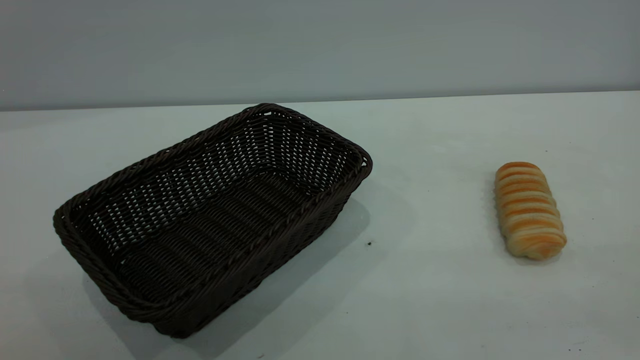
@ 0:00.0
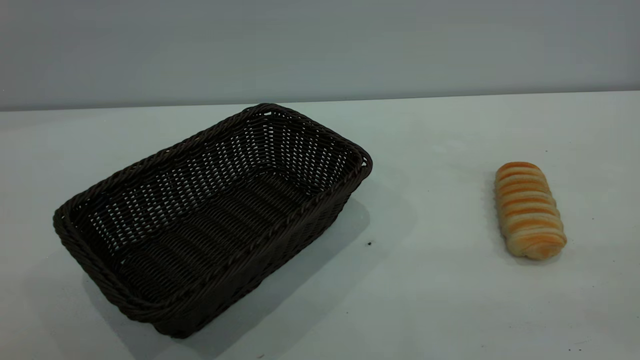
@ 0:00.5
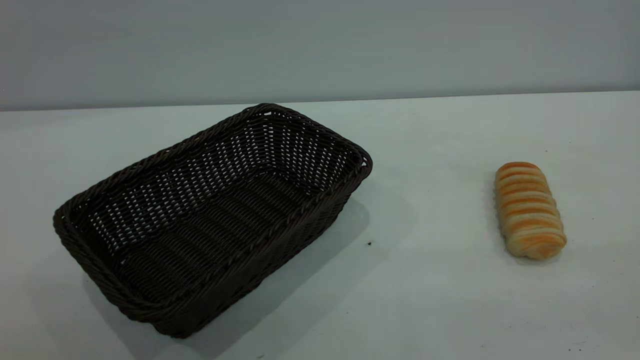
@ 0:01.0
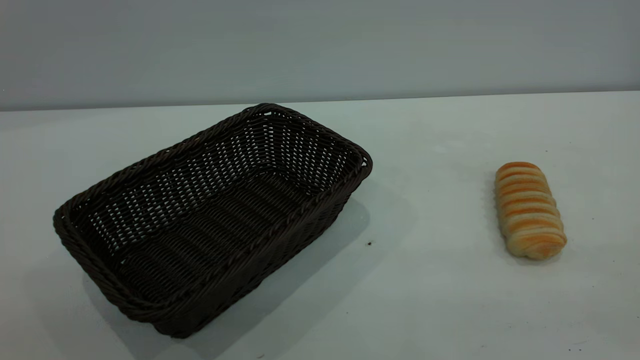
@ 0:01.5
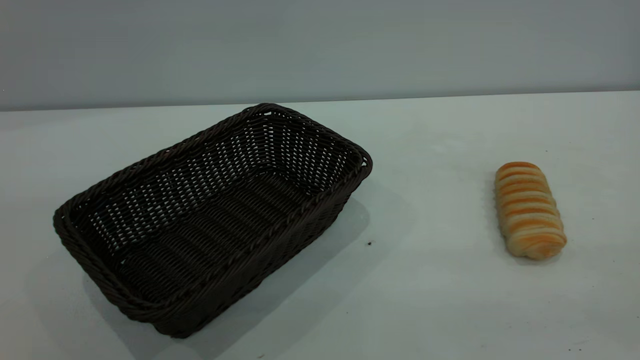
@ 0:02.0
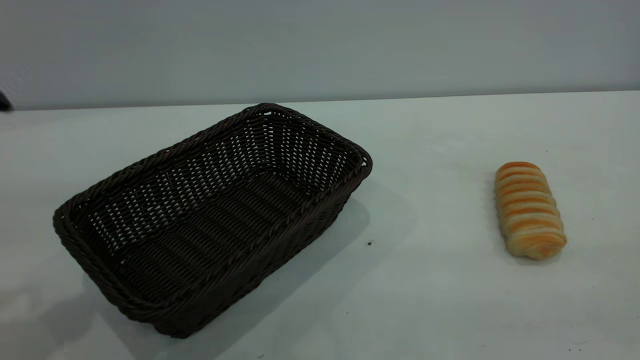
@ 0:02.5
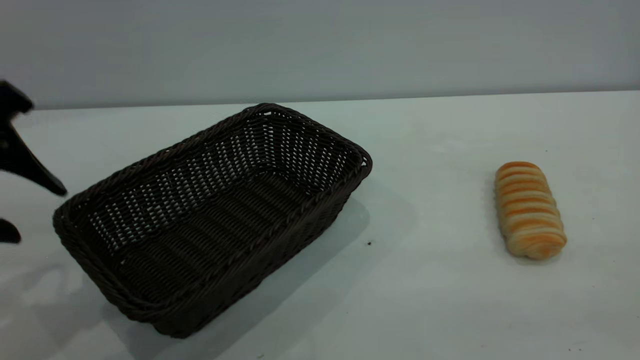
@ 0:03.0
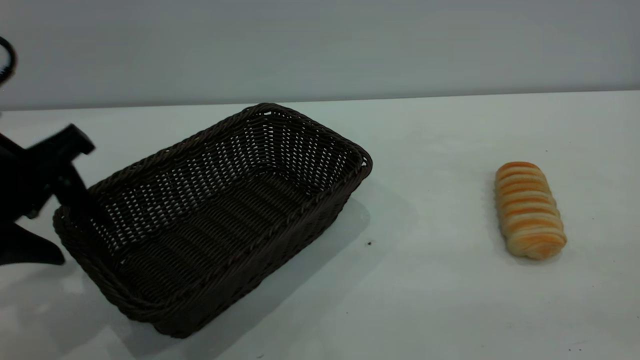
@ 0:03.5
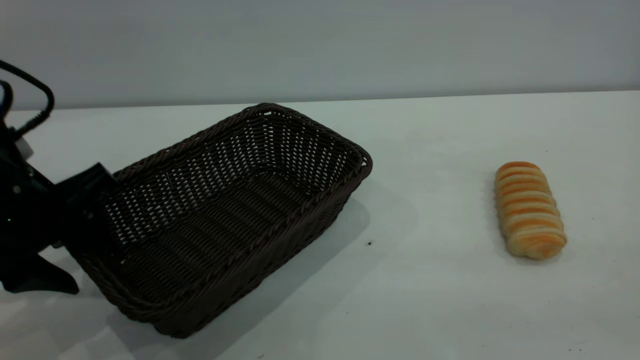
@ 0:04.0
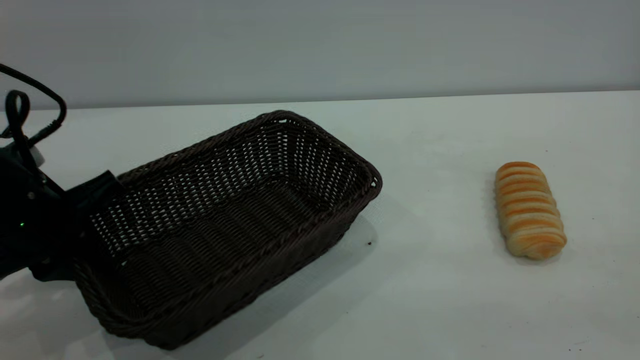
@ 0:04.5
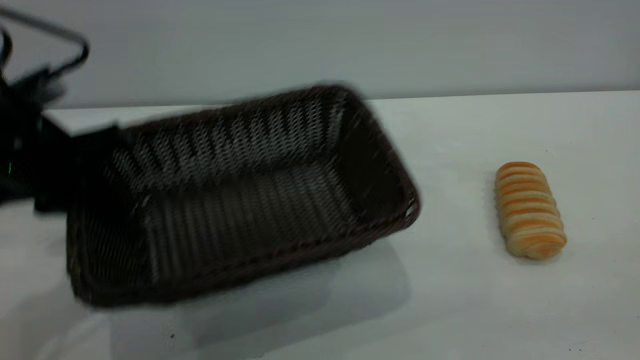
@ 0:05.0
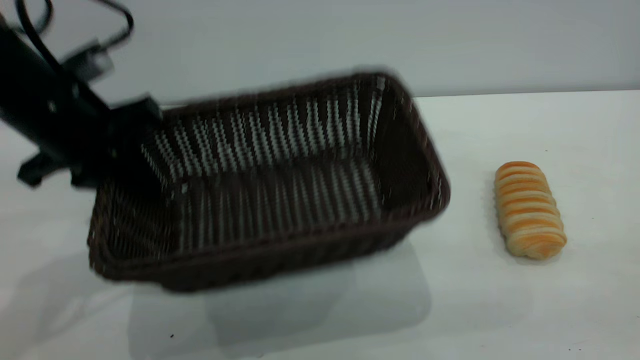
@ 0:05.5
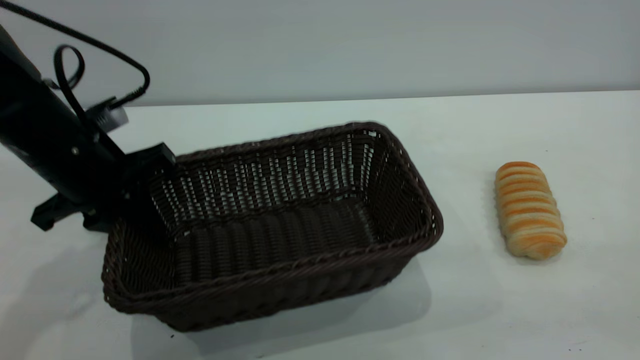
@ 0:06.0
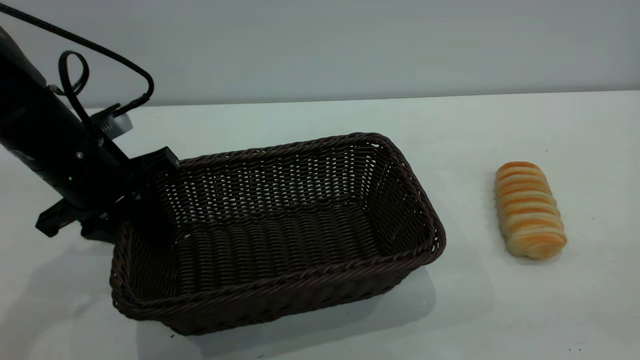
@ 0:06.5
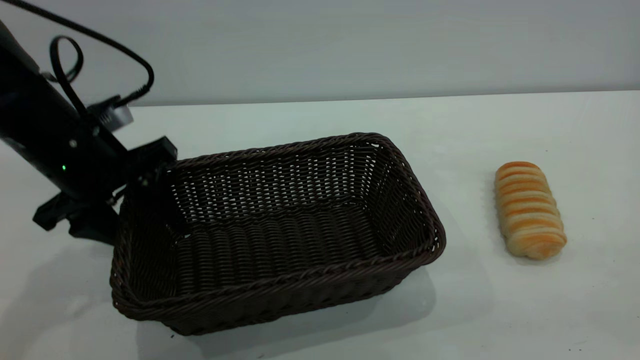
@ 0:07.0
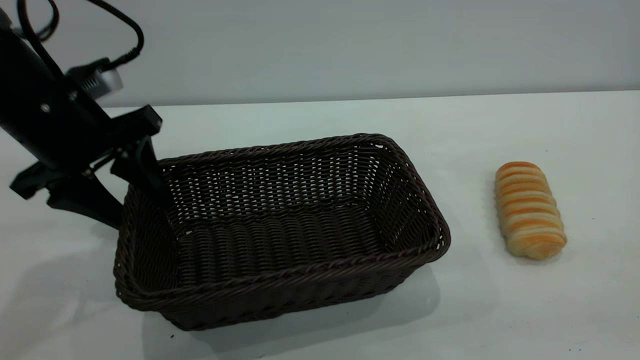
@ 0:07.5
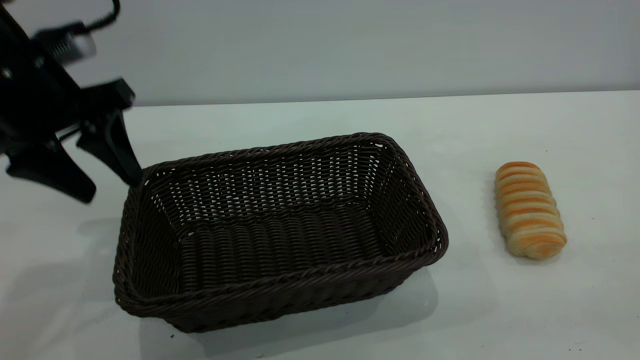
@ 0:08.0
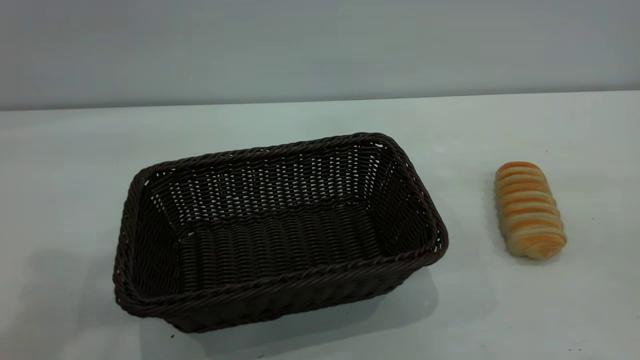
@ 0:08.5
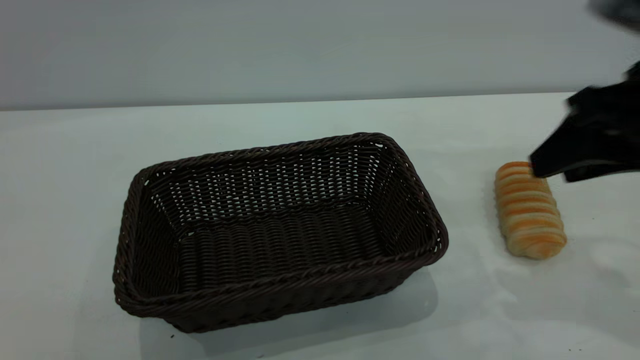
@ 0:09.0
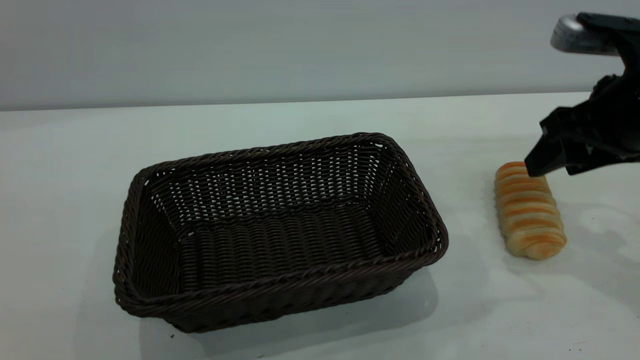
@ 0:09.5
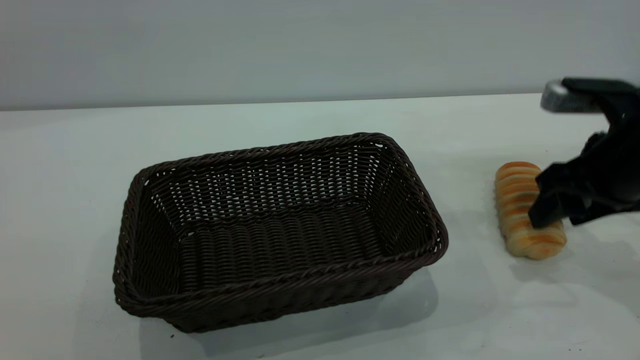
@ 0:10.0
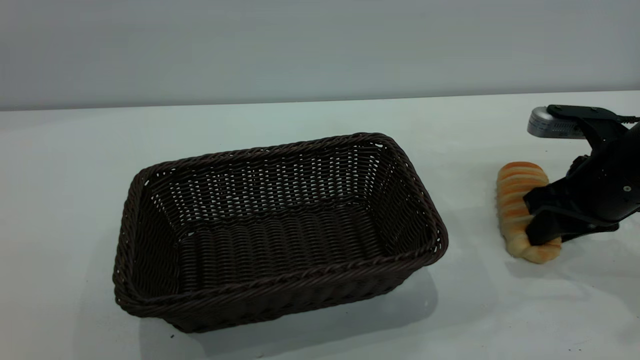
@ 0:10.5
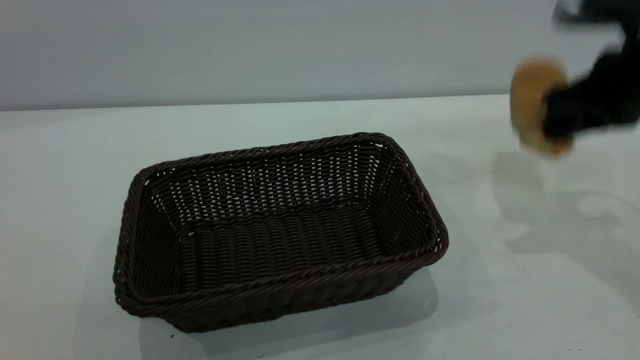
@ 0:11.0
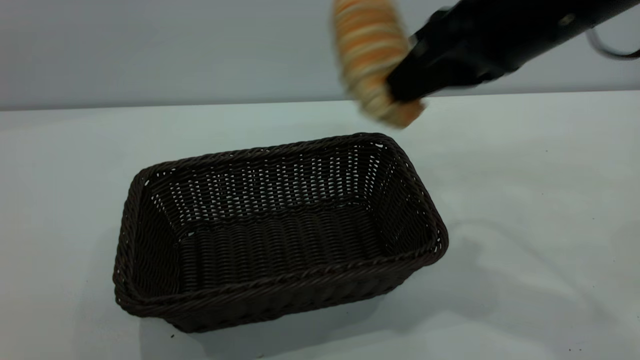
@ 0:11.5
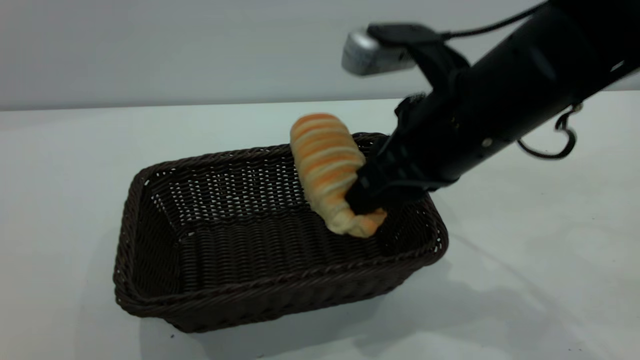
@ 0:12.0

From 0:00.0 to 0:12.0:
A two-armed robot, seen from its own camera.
Task of the whole recording: One hand grasps the black basket and places it in the middle of the table, while the other hand picks up the long bread and puts it into the black basket.
Step, from 0:00.0 to 0:08.0: Move the basket to the center of view.
From 0:02.0 to 0:04.0: The left gripper heads downward and forward, covering some 30 cm.
From 0:04.0 to 0:06.0: The left gripper heads forward, covering about 5 cm, and closes.
From 0:06.0 to 0:08.0: The left gripper travels upward by some 10 cm, and opens.
From 0:08.0 to 0:10.0: The left gripper heads backward and upward, covering approximately 50 cm; the right gripper shifts approximately 40 cm forward and downward, and opens up.
From 0:10.0 to 0:12.0: The right gripper moves to the left, about 15 cm, and closes.

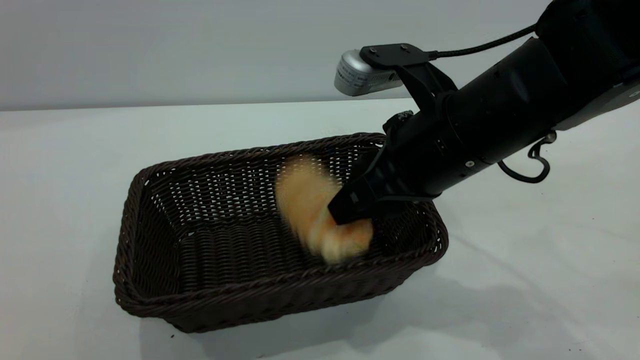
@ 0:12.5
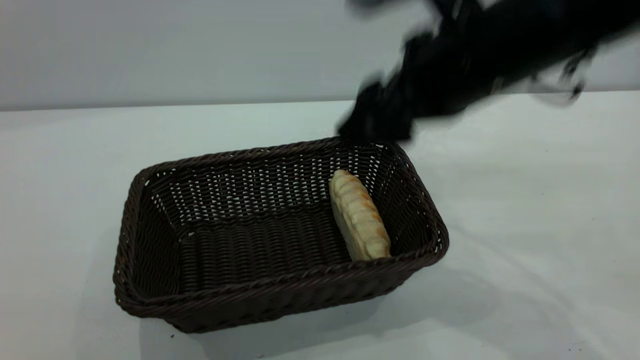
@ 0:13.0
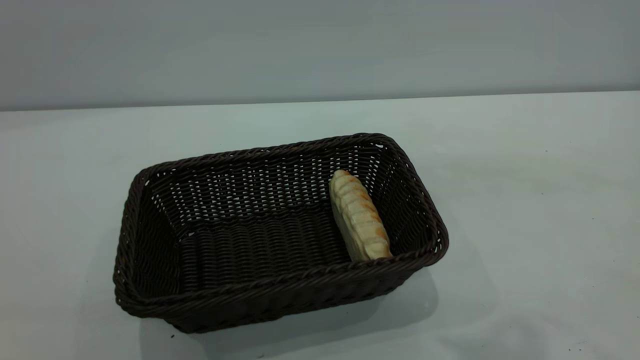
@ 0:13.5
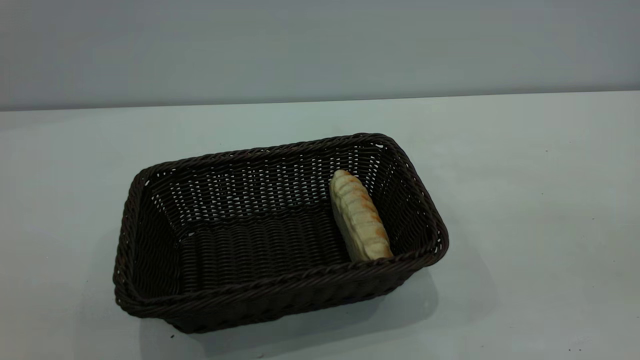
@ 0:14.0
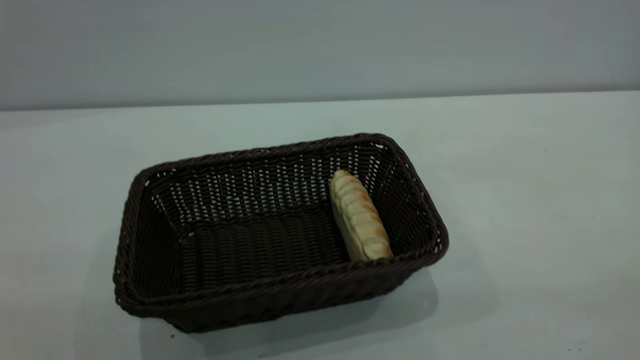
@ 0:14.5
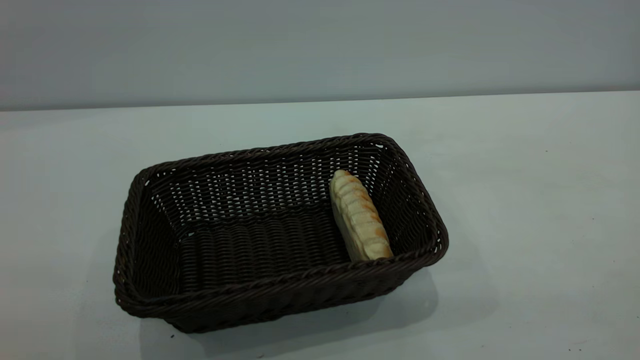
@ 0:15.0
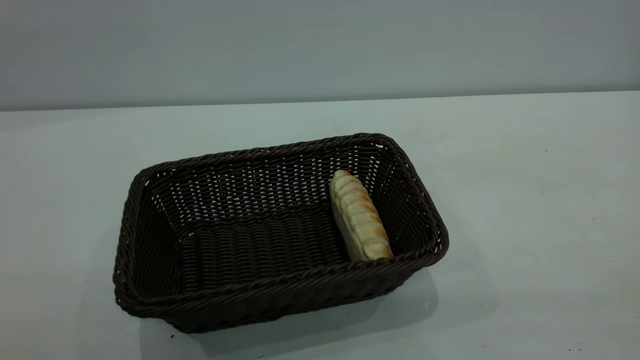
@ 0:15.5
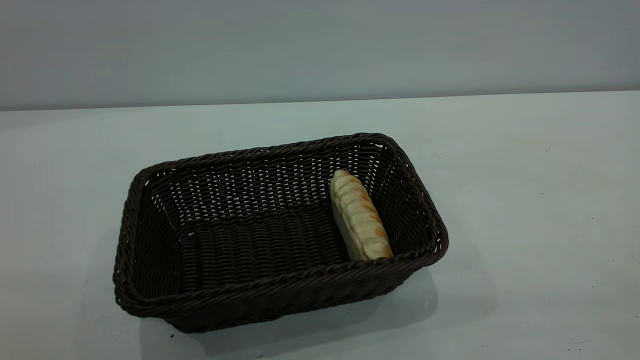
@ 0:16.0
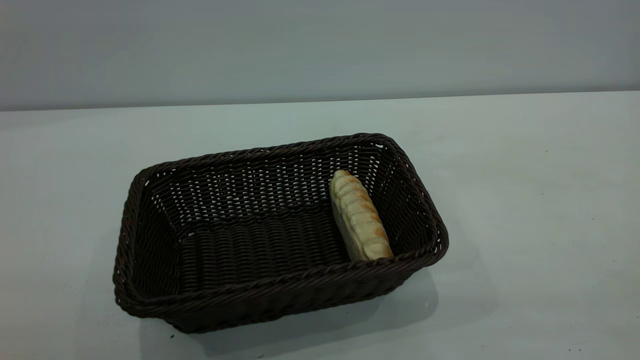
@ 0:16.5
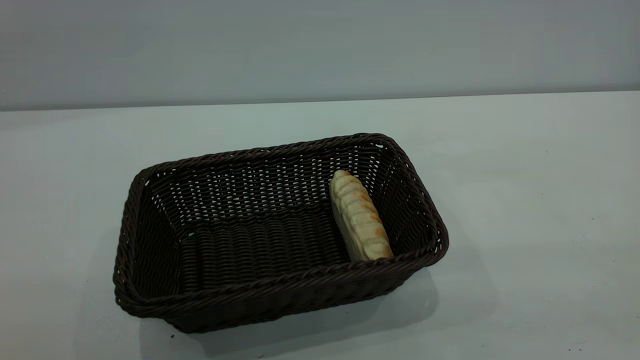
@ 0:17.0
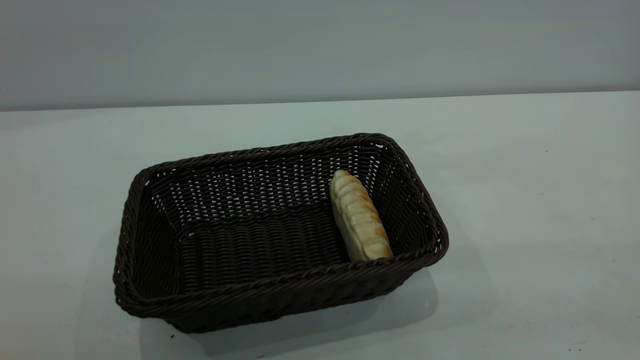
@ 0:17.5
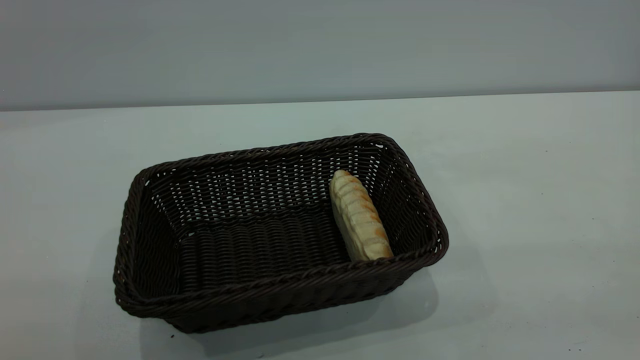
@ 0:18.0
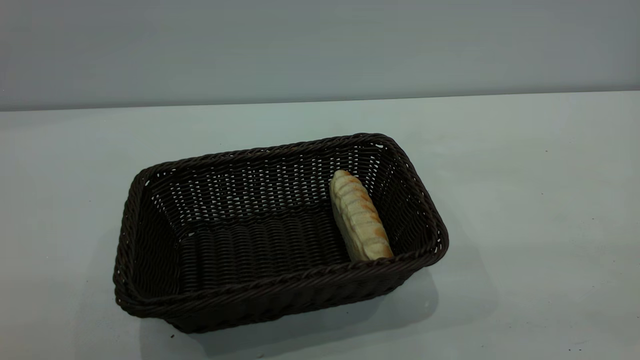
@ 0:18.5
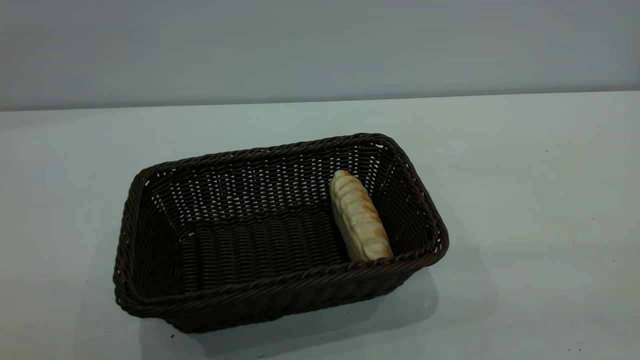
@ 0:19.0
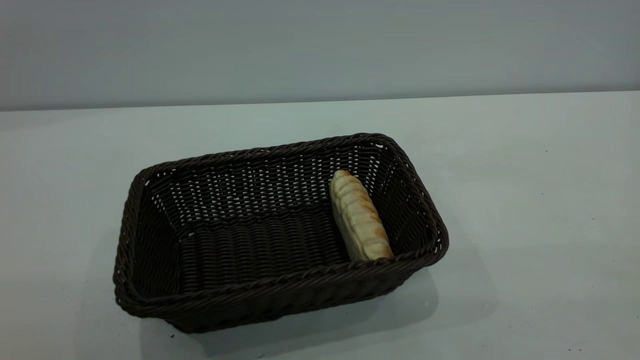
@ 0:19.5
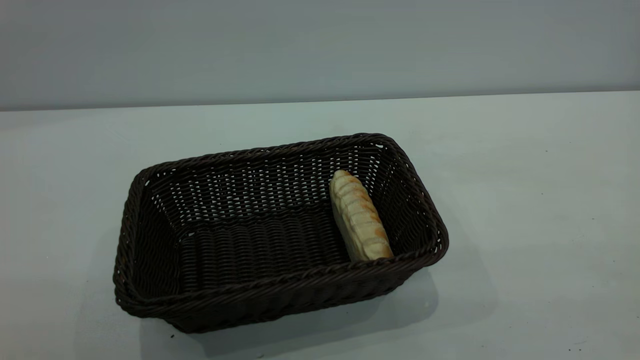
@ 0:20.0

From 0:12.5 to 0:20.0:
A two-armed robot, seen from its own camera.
Task of the whole recording: One hand grasps the black basket and places it in the middle of the table, while the other hand picks up the long bread and puts it into the black basket.
From 0:12.5 to 0:14.5: The left gripper is displaced downward and forward by approximately 20 cm. Meanwhile the right gripper shifts some 35 cm backward, to the right and upward.
